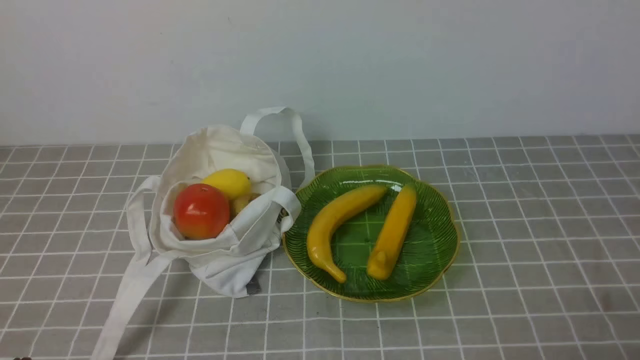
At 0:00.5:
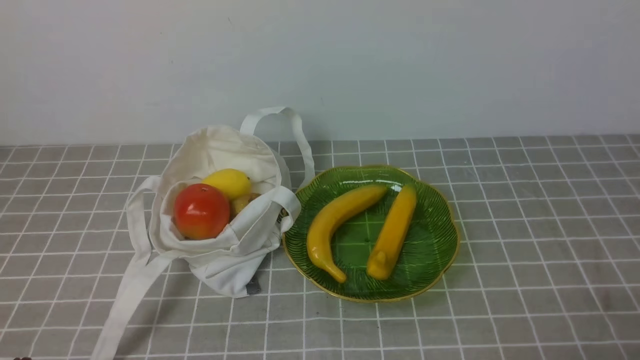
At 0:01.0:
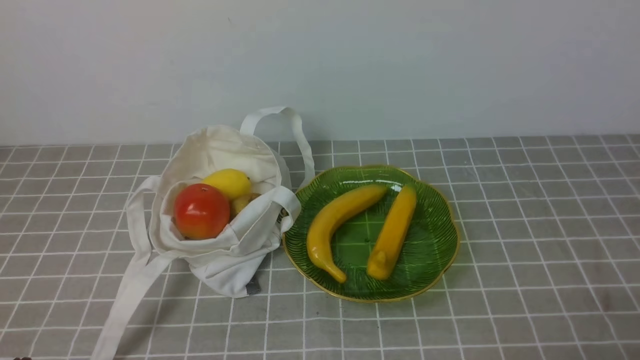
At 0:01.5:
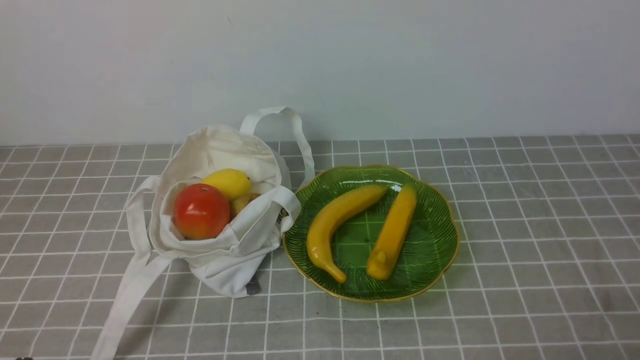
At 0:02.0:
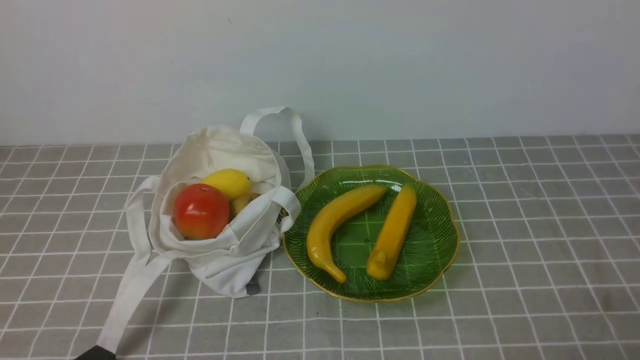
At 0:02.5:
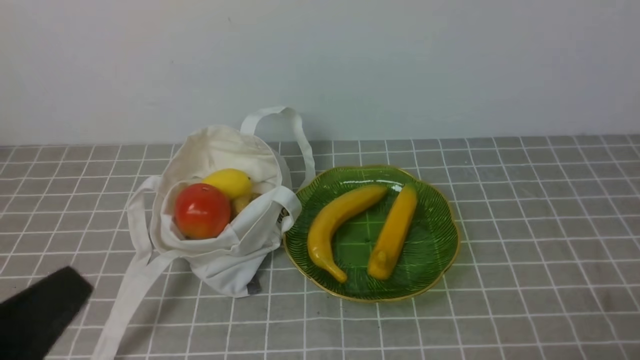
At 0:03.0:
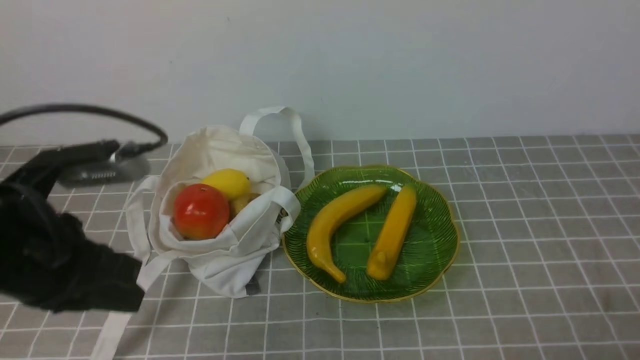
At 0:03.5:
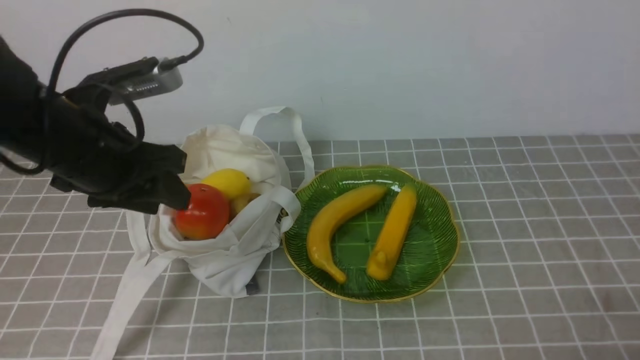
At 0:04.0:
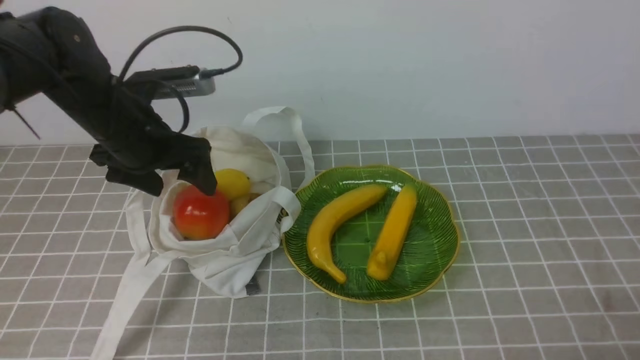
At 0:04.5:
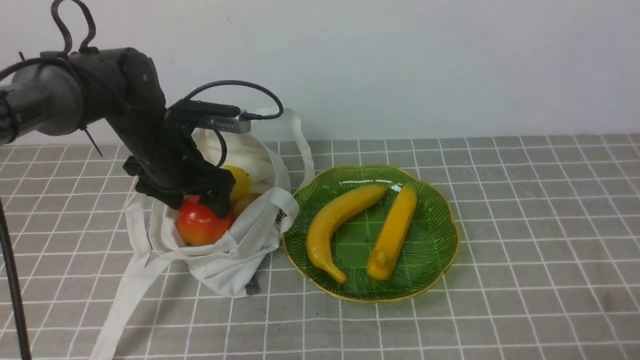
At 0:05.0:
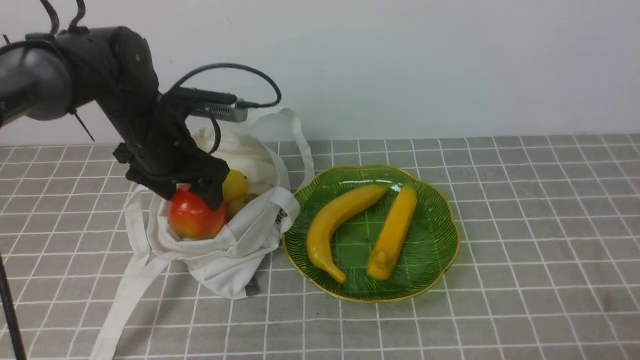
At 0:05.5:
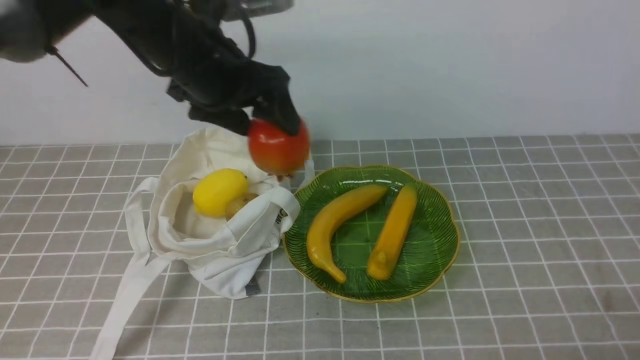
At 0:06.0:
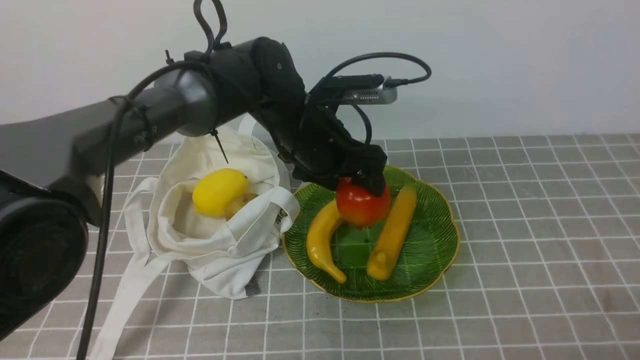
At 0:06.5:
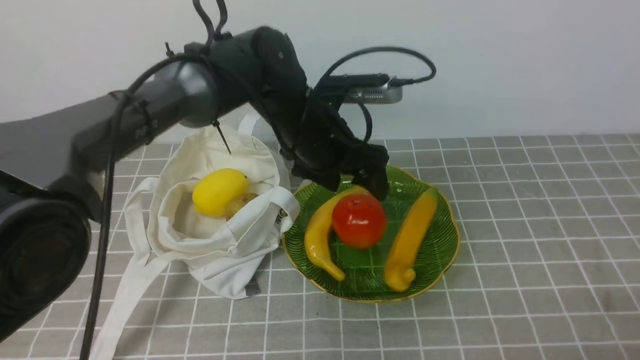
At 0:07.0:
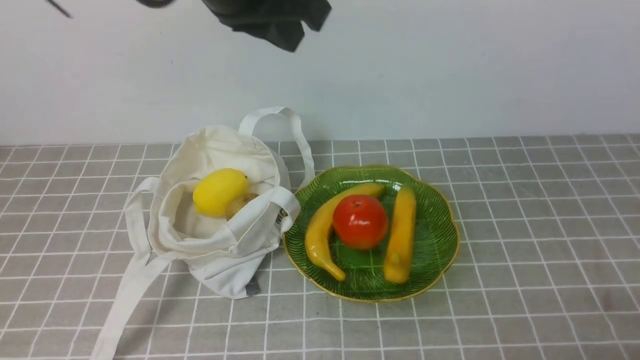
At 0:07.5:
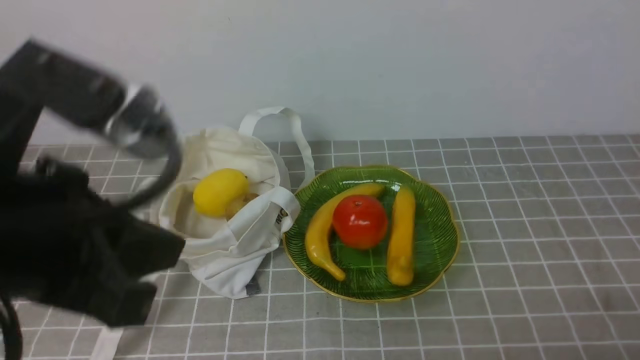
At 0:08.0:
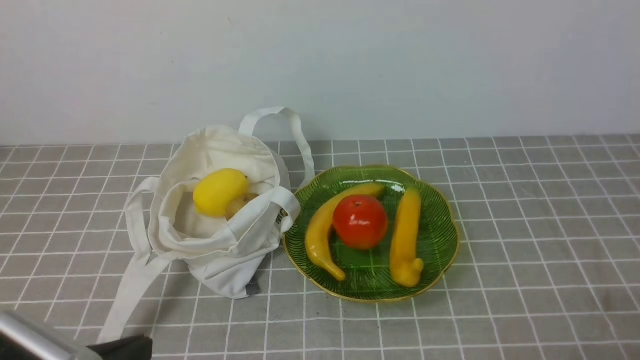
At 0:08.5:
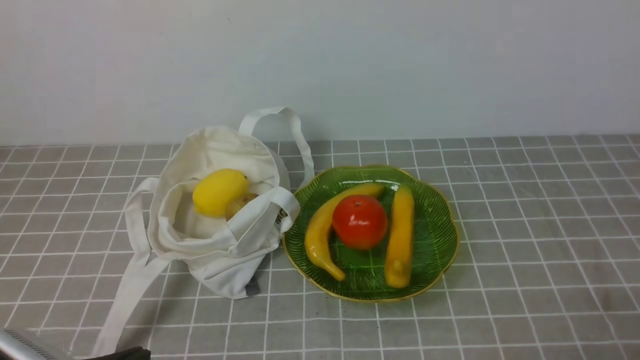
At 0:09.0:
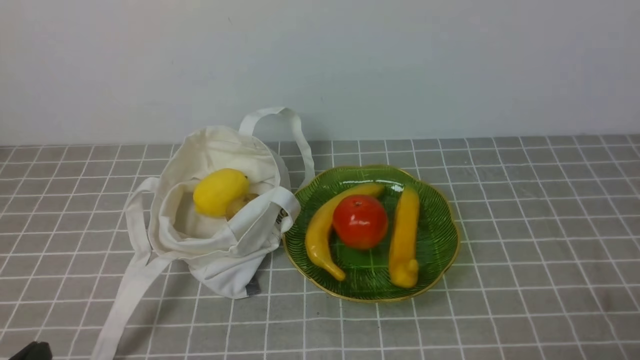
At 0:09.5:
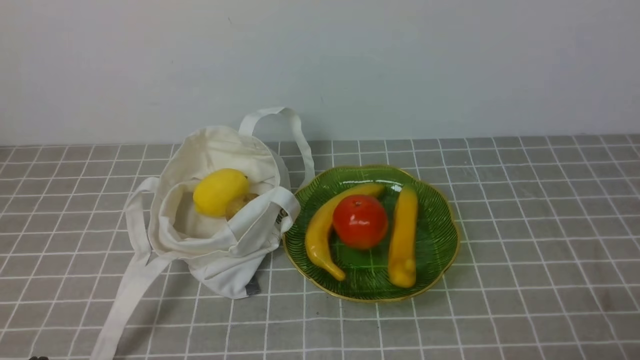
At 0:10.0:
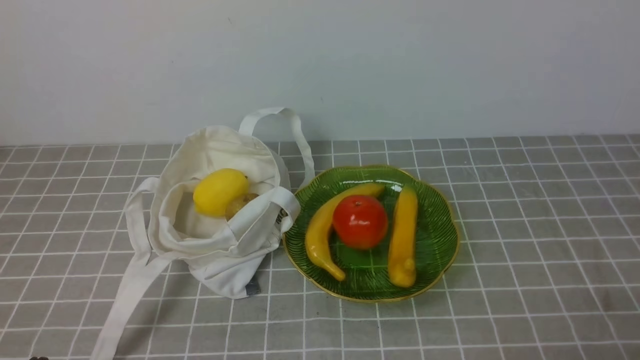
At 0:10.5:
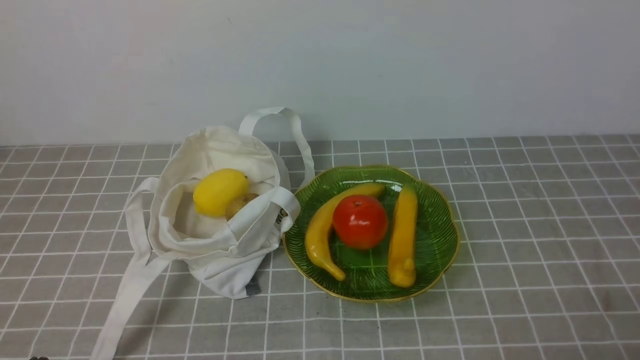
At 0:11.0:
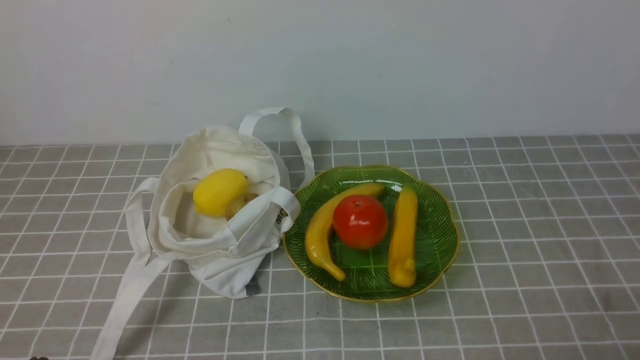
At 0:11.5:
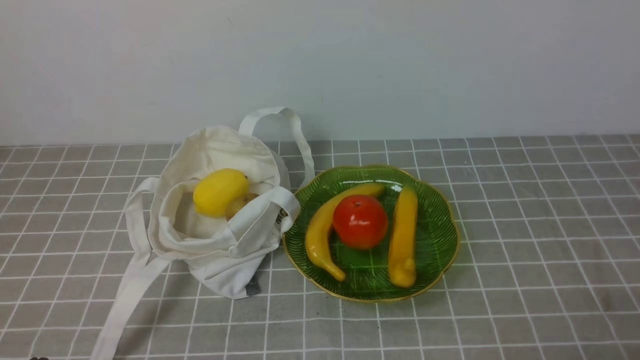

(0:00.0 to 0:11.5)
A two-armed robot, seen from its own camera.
Step, 0:00.0 - 0:04.5: use the left arm to grab a pomegranate from the bag.
Step, 0:05.0 - 0:06.5: use the left arm to put the pomegranate into the empty plate on the right.
0:02.0 - 0:04.0: The left gripper goes approximately 30 cm forward, and opens.
0:04.0 - 0:06.0: The left gripper shifts some 20 cm to the right.
0:06.0 - 0:07.5: The left gripper is displaced backward, upward and to the left by about 30 cm, and closes.
0:07.5 - 0:09.5: The left gripper moves downward, backward and to the left, roughly 30 cm.
0:09.5 - 0:11.5: The two grippers keep their place.
